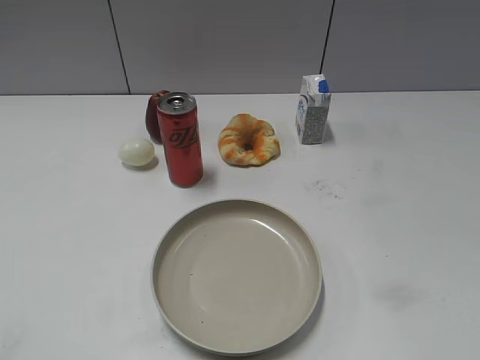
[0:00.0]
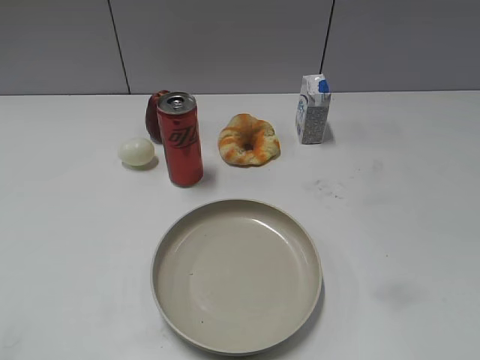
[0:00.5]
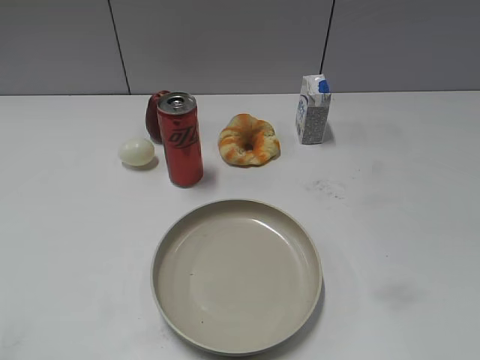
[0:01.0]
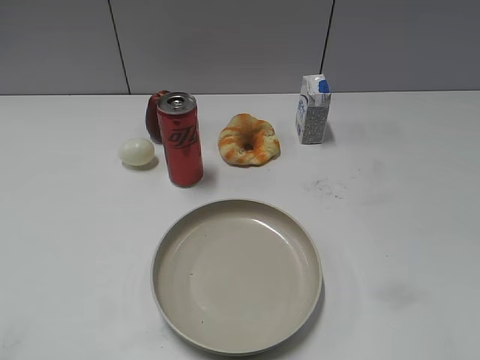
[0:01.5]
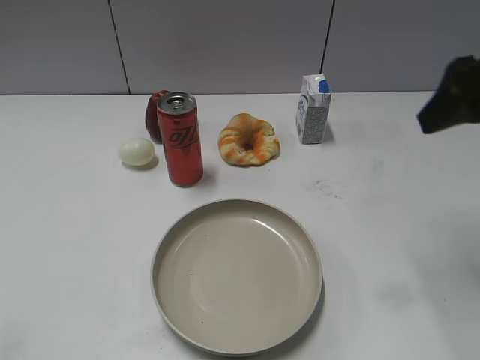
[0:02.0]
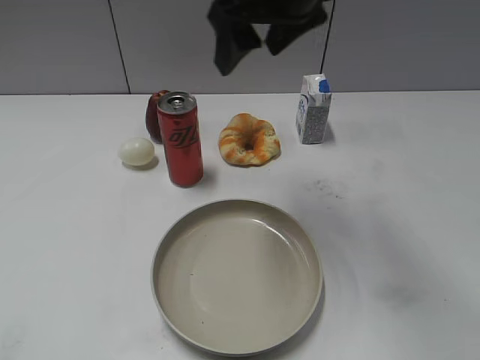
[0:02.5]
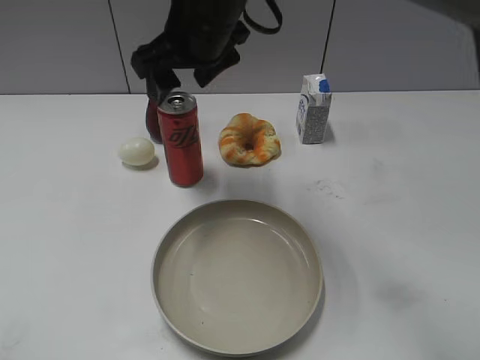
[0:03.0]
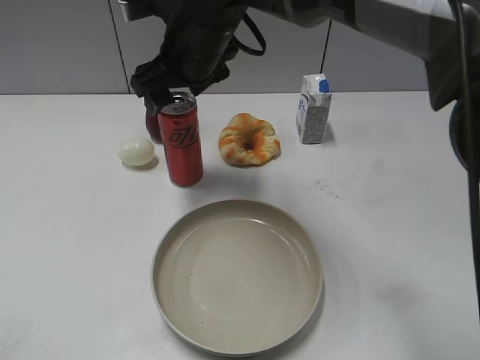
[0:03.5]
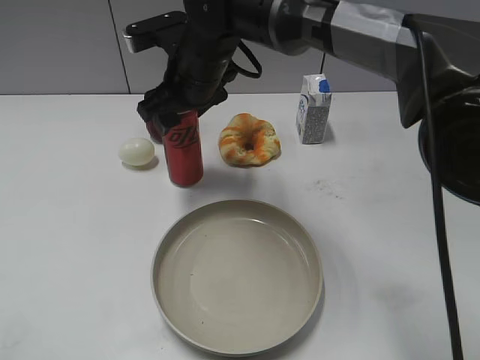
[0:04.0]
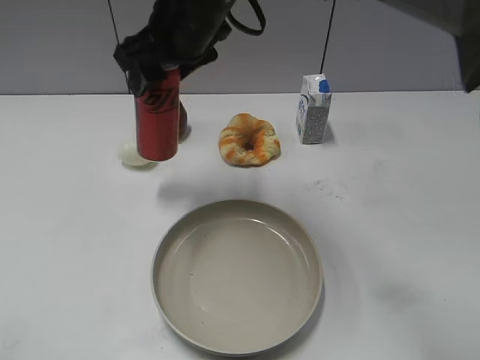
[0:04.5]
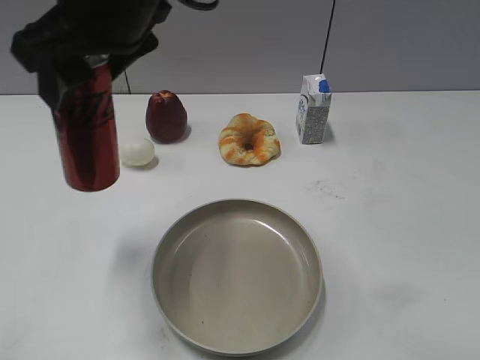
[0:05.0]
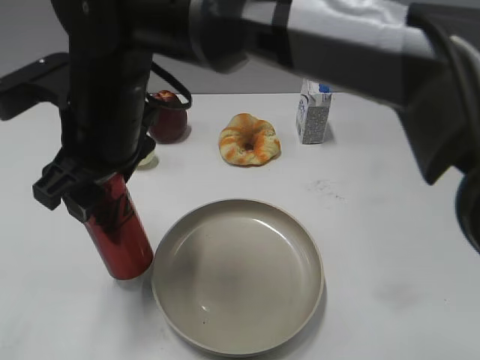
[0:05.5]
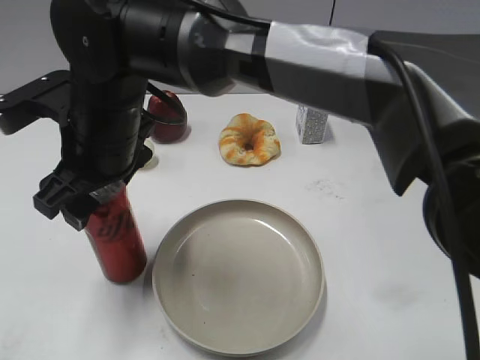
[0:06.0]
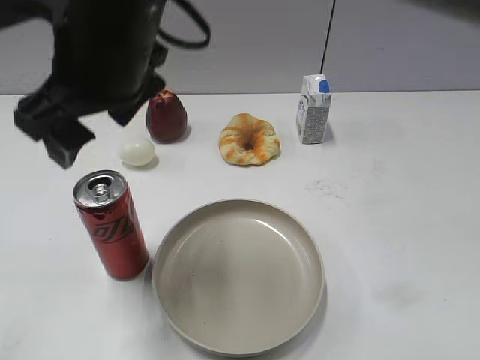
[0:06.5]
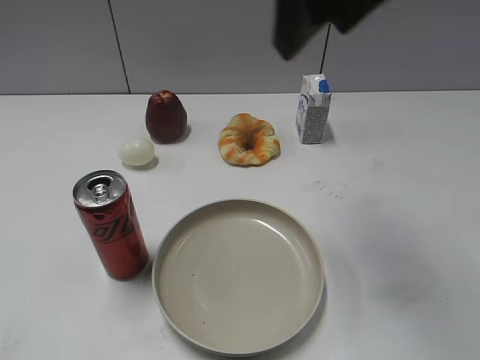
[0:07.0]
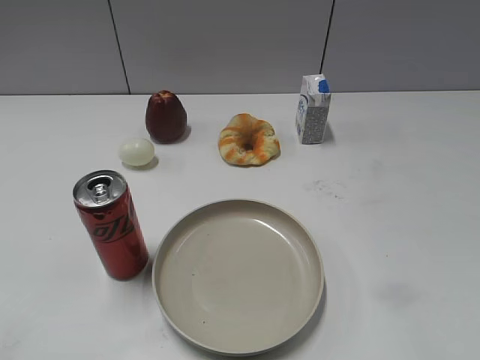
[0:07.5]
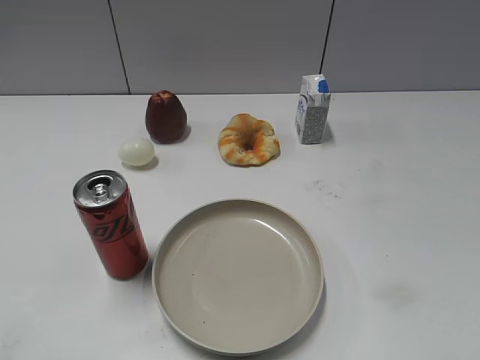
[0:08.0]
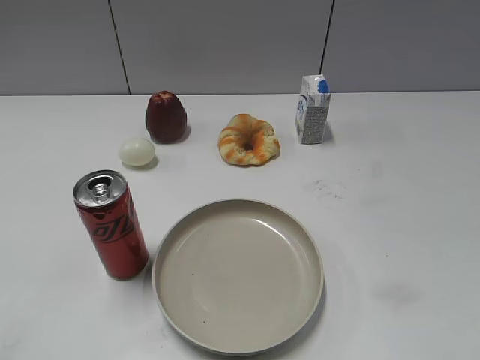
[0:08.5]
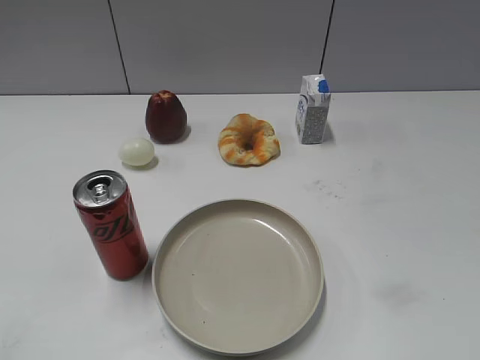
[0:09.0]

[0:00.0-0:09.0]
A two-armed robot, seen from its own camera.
Step, 0:01.0 to 0:03.5: Grasp the cola with right gripper.
Step, 0:04.0 to 0:06.5: Place the cola on the table with right gripper.
0:02.0 to 0:04.5: The right gripper goes some 30 cm to the left and forward, and closes its fingers.
0:04.5 to 0:07.0: The right gripper heads to the right, upward and backward, covering approximately 20 cm, and opens up.
0:07.0 to 0:09.0: The right gripper is displaced backward and to the right by some 35 cm.
